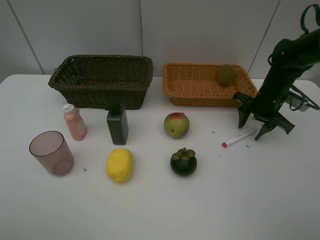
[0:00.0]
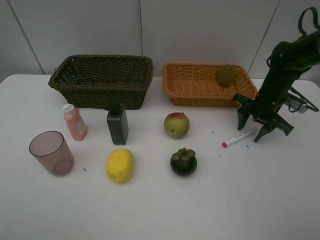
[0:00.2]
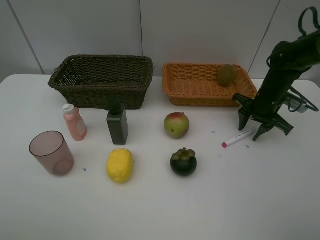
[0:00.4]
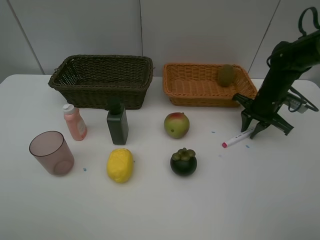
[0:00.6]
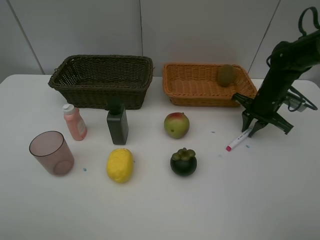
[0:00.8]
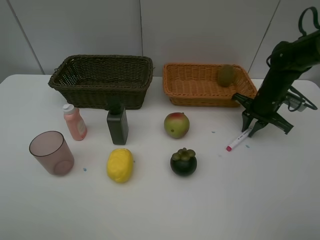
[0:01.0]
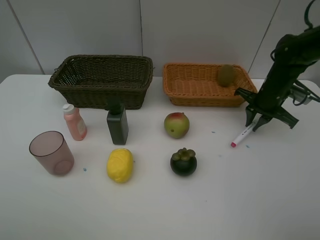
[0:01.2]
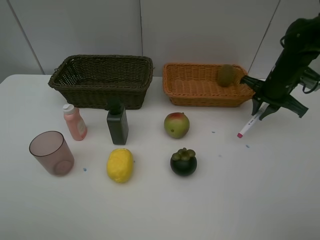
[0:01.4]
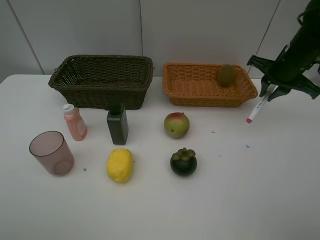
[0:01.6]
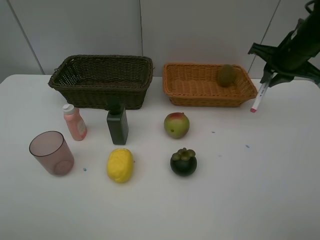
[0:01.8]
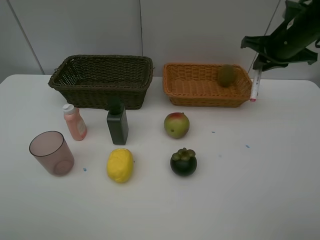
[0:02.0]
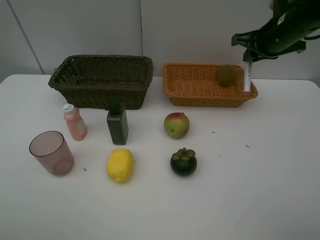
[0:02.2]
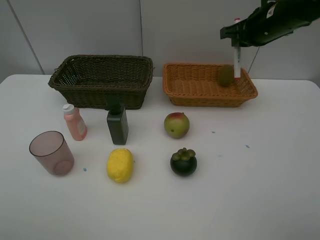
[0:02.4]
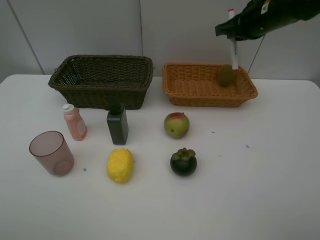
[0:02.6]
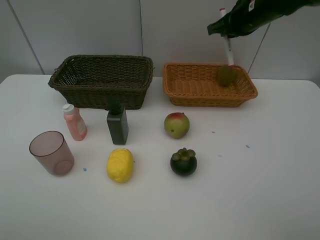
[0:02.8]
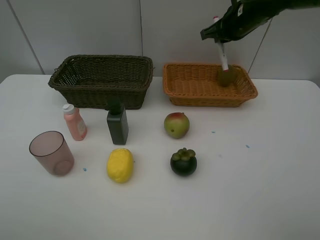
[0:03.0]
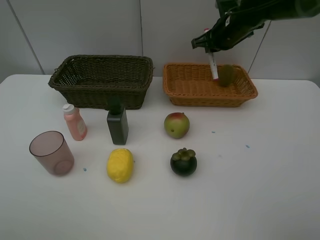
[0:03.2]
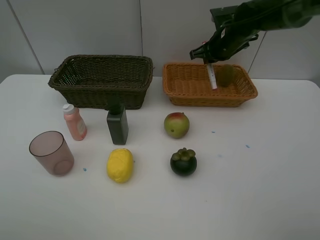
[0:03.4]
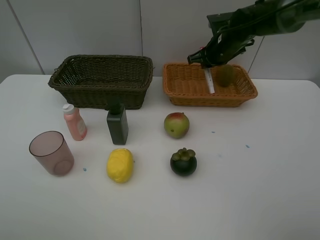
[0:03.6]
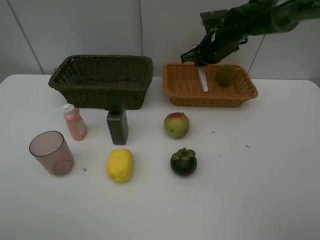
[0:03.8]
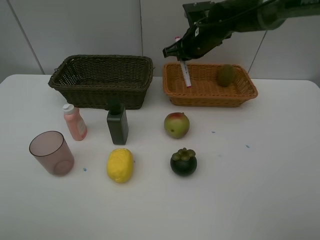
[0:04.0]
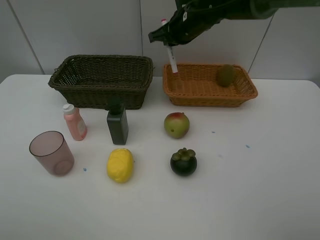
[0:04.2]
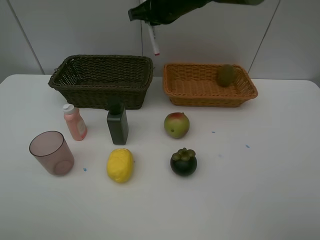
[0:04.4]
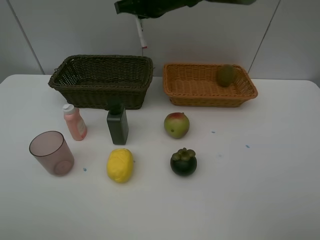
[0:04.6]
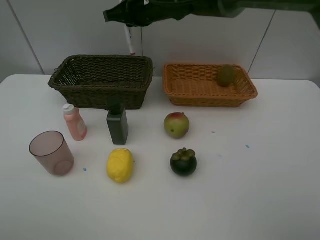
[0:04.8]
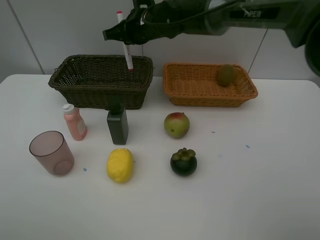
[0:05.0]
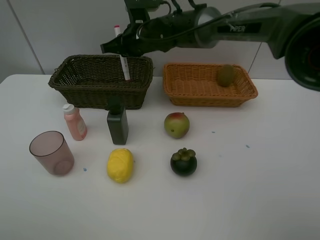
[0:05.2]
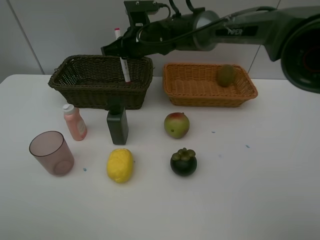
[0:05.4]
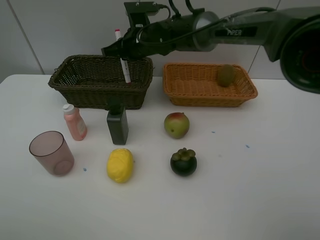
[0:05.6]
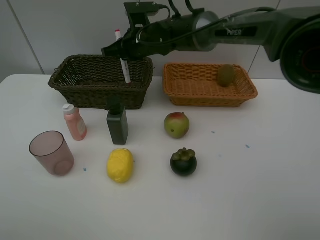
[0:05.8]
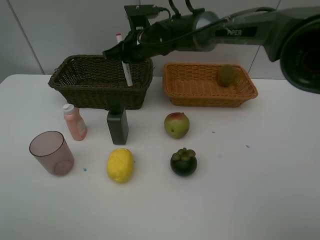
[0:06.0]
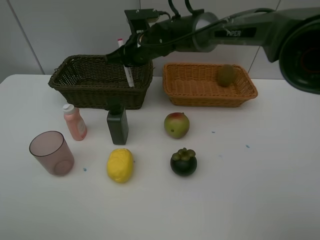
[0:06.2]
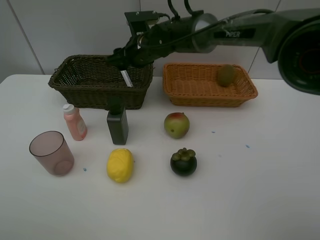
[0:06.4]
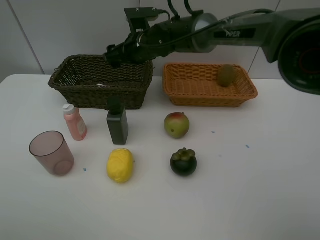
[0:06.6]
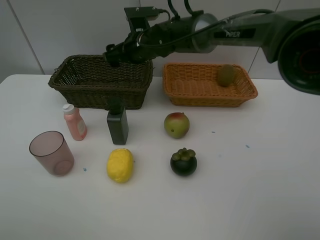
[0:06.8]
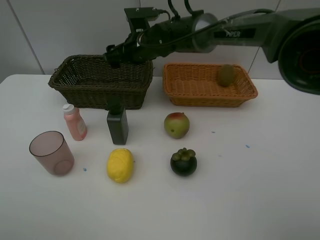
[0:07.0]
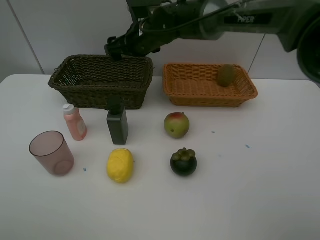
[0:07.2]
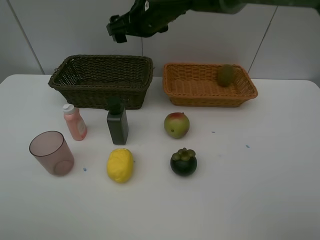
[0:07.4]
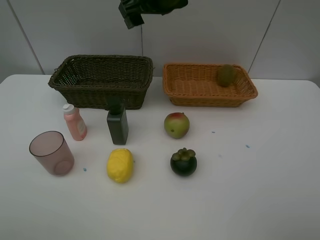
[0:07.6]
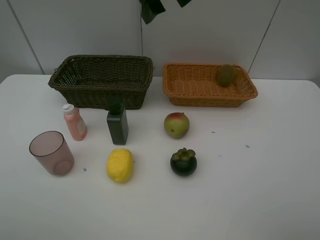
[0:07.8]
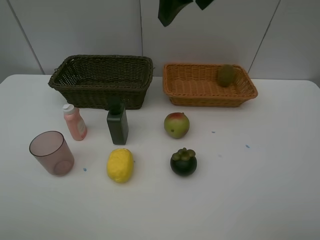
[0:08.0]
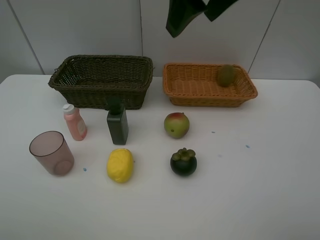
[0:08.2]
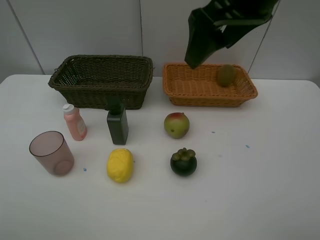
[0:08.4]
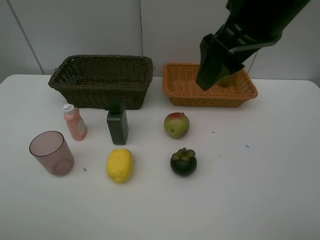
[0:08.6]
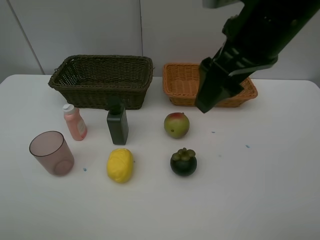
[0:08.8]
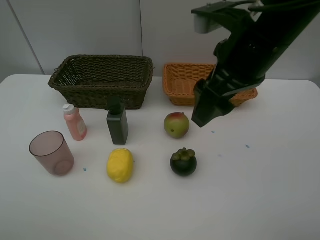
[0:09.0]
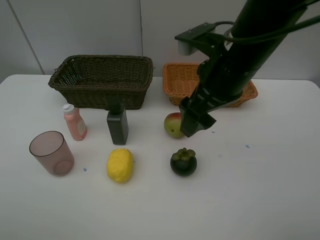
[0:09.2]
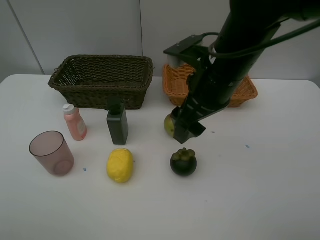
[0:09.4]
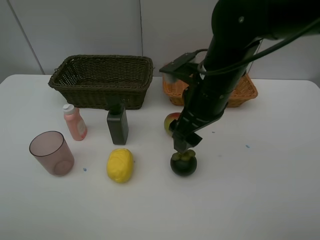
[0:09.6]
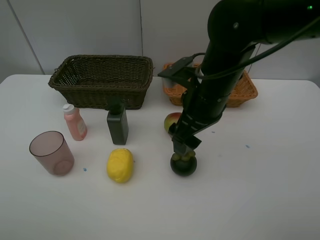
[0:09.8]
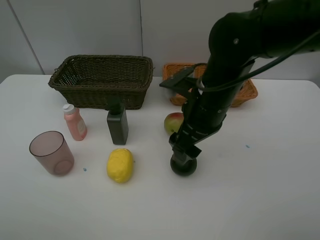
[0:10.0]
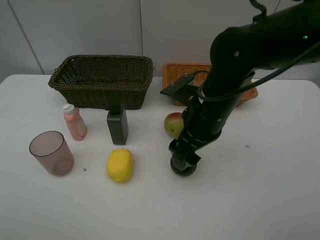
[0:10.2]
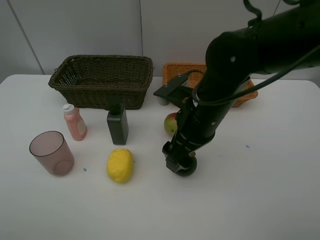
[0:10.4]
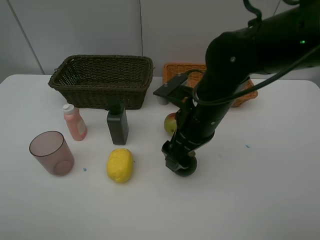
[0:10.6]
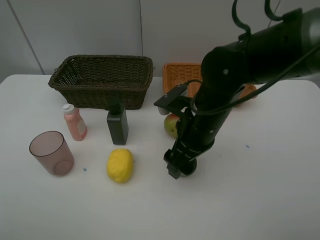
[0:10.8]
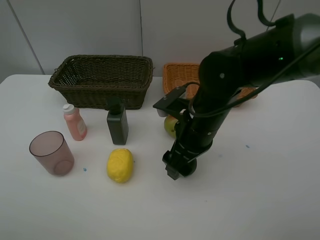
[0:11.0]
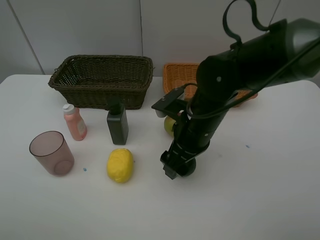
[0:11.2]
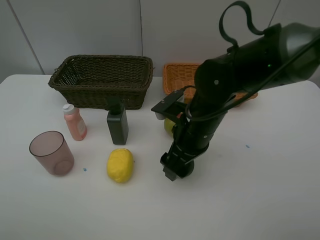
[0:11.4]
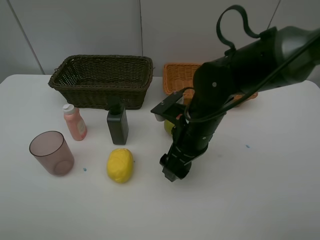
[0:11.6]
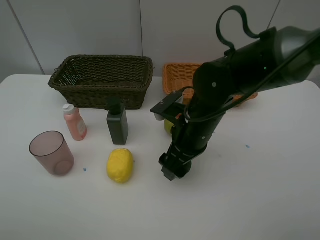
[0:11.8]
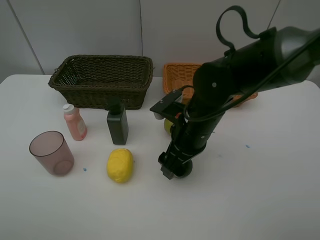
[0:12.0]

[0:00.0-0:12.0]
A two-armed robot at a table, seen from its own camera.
Task of the whole recording: Place multiple objects separately in different baskets.
Step, 0:01.6 to 0:06.8: Place the red marker in the dark basket with right gripper.
0:00.0 to 0:01.6: The right gripper shifts roughly 10 cm upward, and closes.
0:01.6 to 0:03.0: The right gripper moves to the left and forward, approximately 15 cm.
0:03.0 to 0:04.4: The right gripper is displaced to the left by some 15 cm.
0:04.4 to 0:06.0: The right gripper travels downward and to the left by approximately 10 cm.
0:06.0 to 0:07.6: The right gripper goes some 15 cm upward and backward, and opens up.
0:07.6 to 0:09.0: The right gripper goes approximately 15 cm backward and to the right.
0:09.0 to 0:10.4: The right gripper travels downward by about 10 cm.
0:10.4 to 0:12.0: The grippers move only a little.

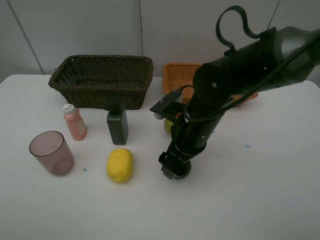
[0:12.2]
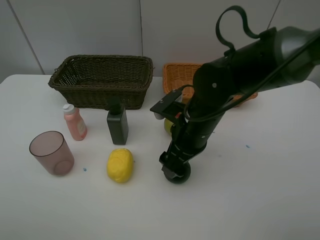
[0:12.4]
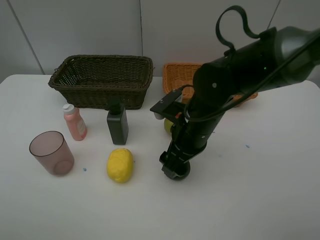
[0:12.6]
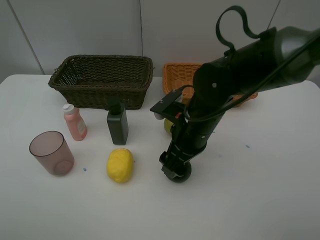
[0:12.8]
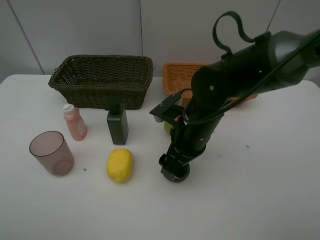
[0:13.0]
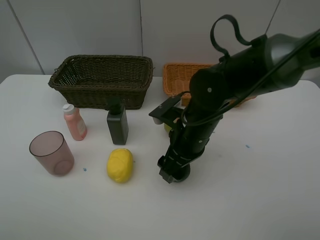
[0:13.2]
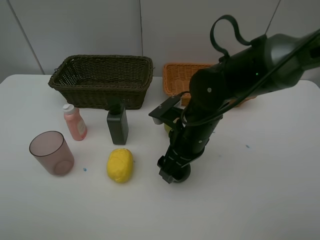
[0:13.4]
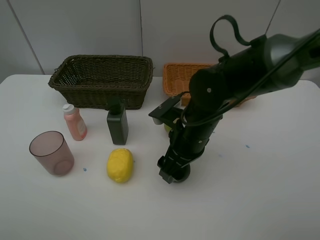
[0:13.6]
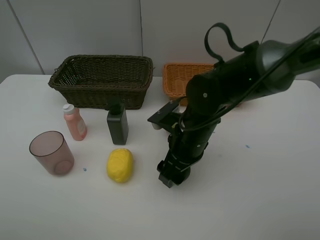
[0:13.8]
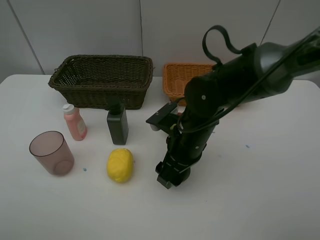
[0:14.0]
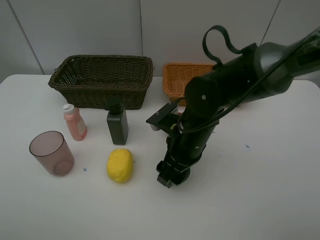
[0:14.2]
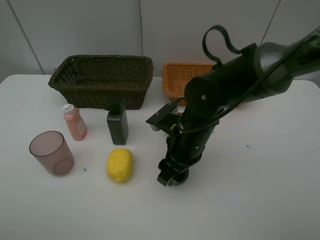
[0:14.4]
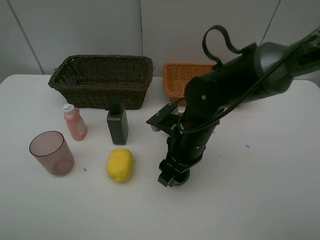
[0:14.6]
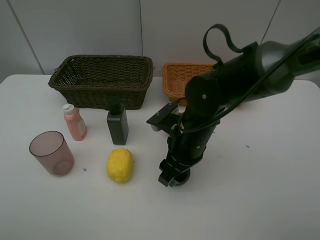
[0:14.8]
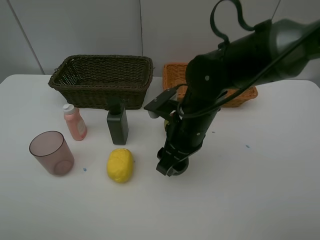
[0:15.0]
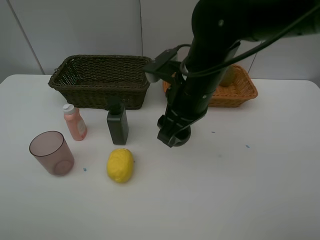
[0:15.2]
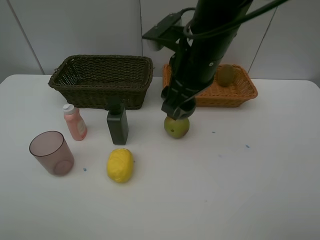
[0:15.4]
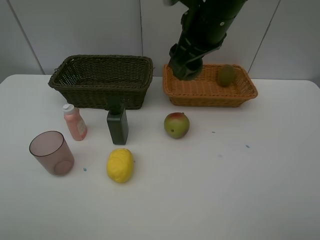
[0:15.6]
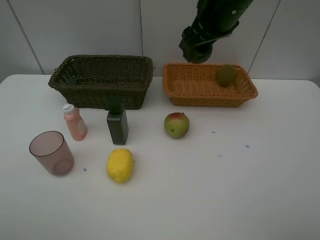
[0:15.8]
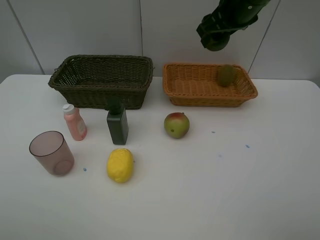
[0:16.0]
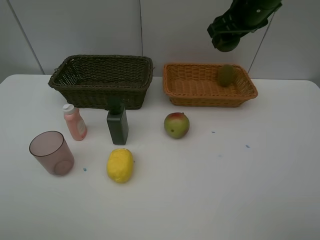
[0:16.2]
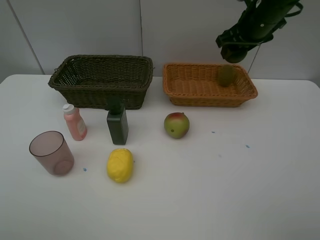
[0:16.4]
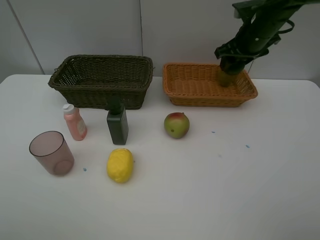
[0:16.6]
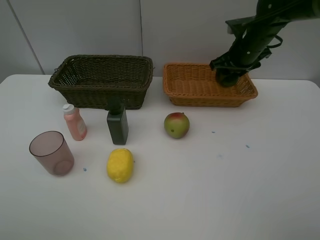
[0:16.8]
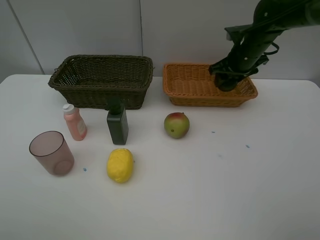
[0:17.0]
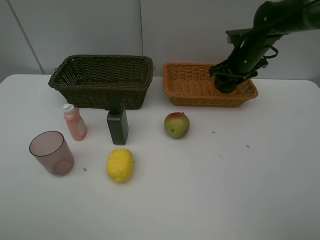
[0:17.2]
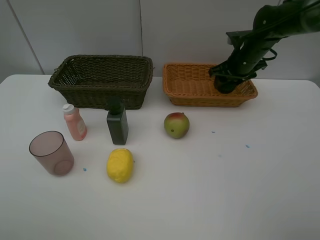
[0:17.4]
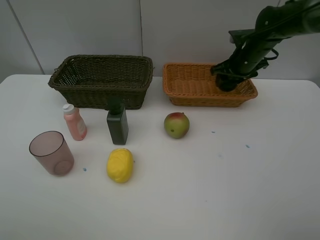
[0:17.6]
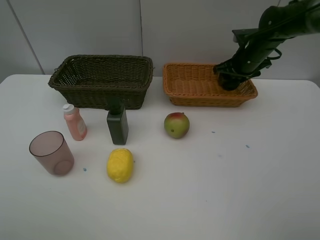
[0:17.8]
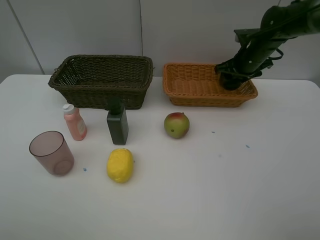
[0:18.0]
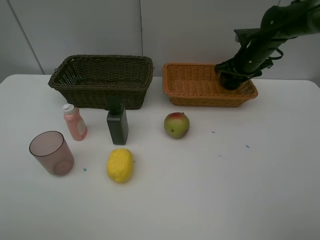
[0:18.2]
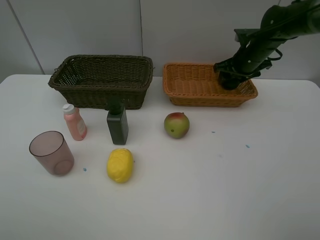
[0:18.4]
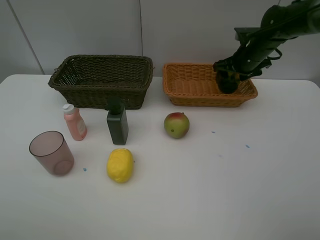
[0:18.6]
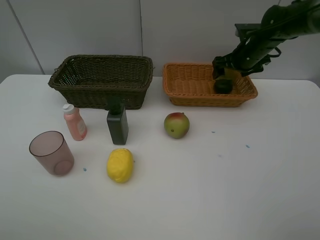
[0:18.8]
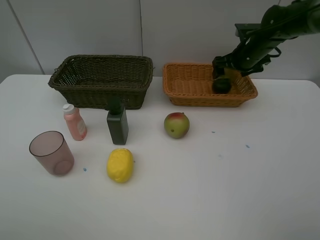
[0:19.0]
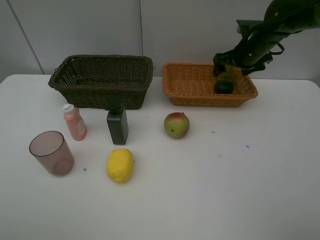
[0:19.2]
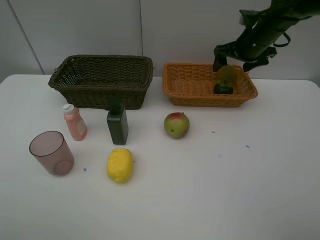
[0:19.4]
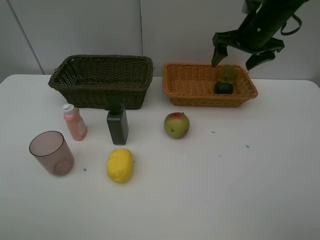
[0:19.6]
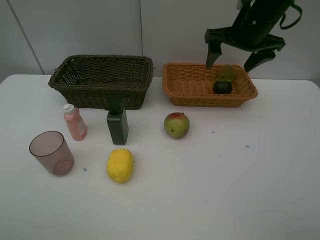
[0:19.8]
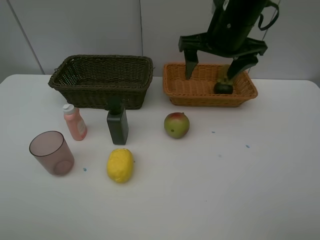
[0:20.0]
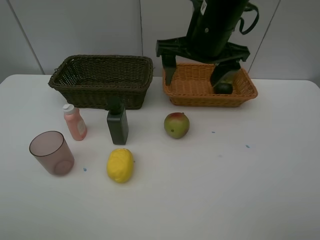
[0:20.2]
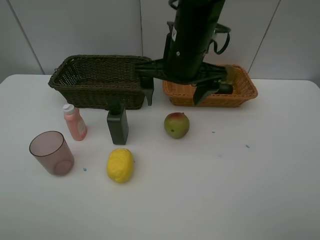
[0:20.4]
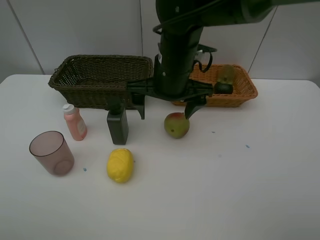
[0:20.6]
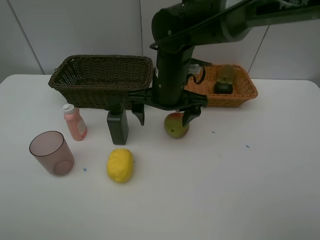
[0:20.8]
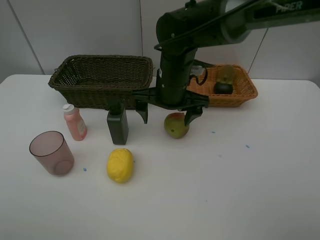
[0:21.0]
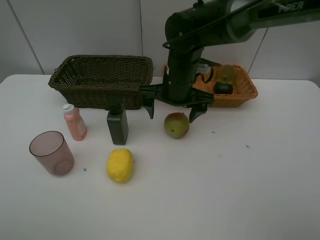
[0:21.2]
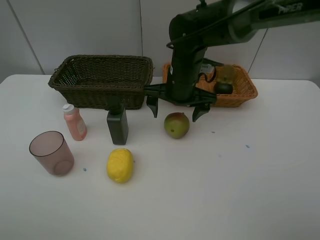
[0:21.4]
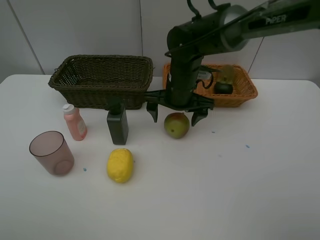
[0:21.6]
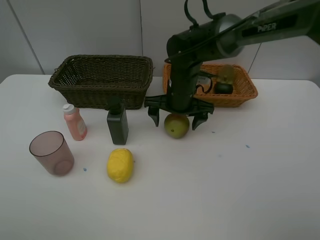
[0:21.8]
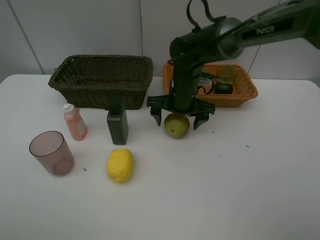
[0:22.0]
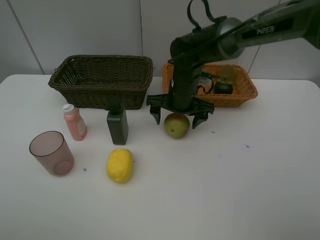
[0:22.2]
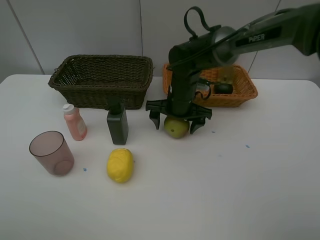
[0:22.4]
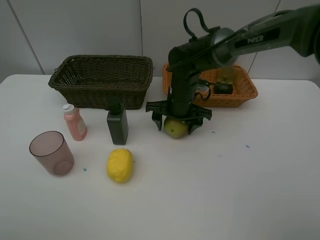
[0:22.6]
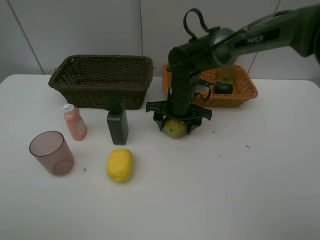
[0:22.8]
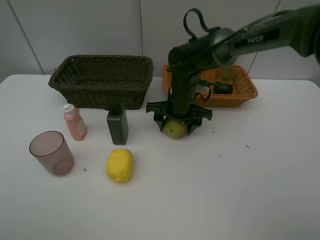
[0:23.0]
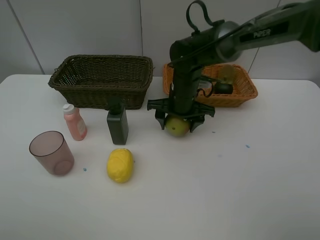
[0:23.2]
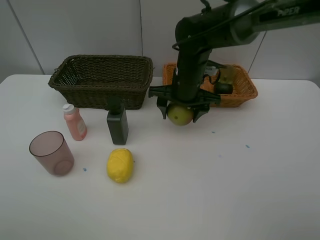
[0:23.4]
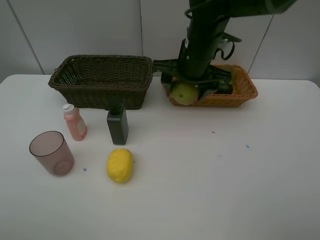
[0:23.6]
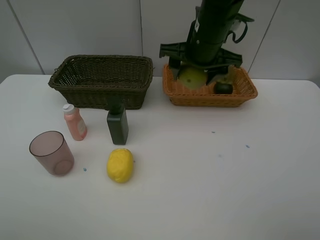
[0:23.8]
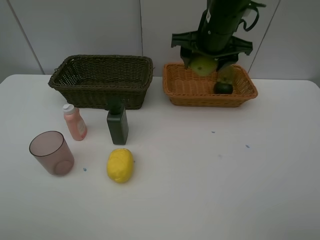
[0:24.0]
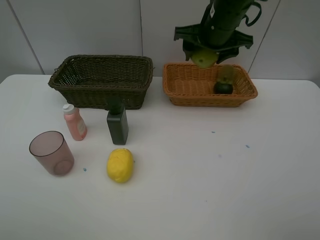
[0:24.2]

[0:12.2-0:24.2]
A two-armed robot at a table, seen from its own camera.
Task of the whole recording: Place multiple objects separately in different baskets.
Step, 0:12.2 to 0:15.2: Pick up the mangosteen with right gripper.
Step, 0:15.4 to 0:19.4: Place the mangosteen in the light basket with right gripper.
Step, 0:19.6 to 0:23.4: Pick up the pear with right gripper.
0:12.2 to 0:13.8: There are only small adjustments of the grippers.
0:13.8 to 0:15.2: The right gripper heads upward, covering roughly 10 cm.
0:15.2 to 0:16.6: The right gripper heads forward and to the right, covering roughly 25 cm.
0:16.6 to 0:18.2: The right gripper heads downward, covering some 5 cm.
0:18.2 to 0:19.8: The right gripper moves upward, backward and to the left, roughly 15 cm, and opens its fingers.
0:19.8 to 0:21.2: The right gripper shifts approximately 15 cm to the left and downward.
0:21.2 to 0:22.6: The right gripper moves downward, roughly 5 cm.
0:22.6 to 0:24.2: The right gripper travels upward by roughly 15 cm.
